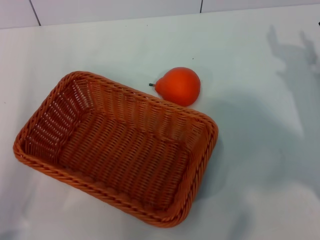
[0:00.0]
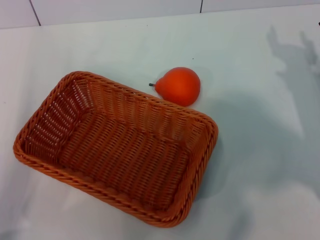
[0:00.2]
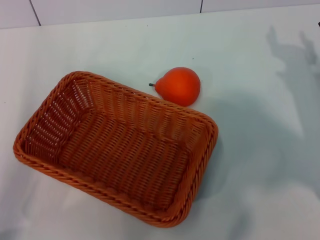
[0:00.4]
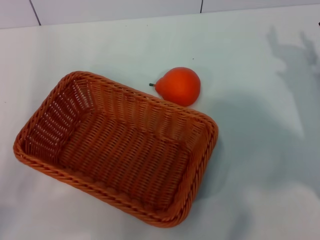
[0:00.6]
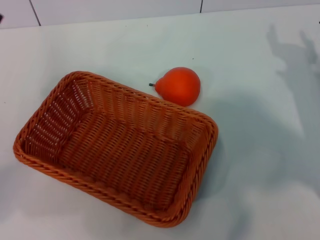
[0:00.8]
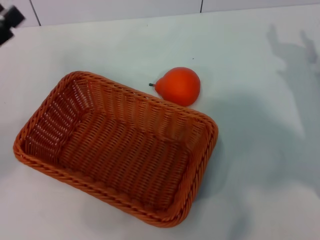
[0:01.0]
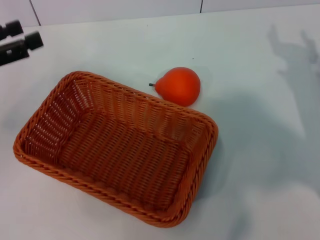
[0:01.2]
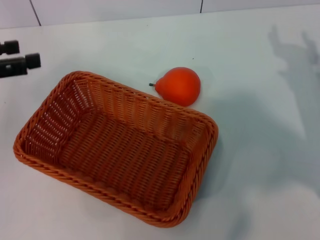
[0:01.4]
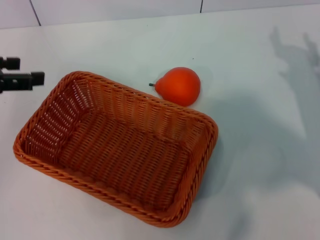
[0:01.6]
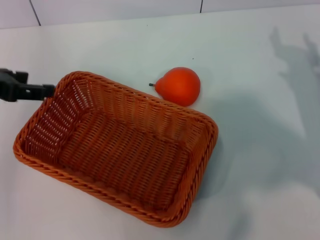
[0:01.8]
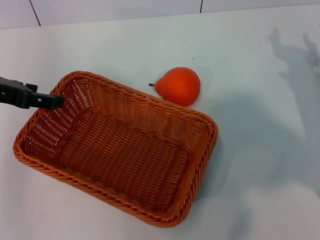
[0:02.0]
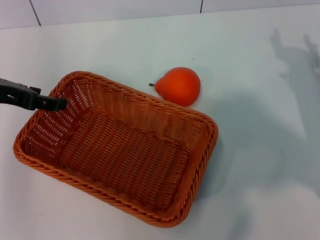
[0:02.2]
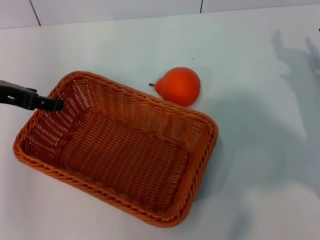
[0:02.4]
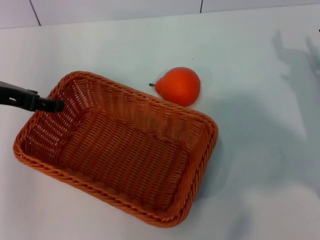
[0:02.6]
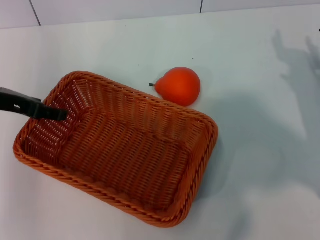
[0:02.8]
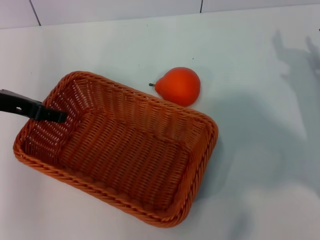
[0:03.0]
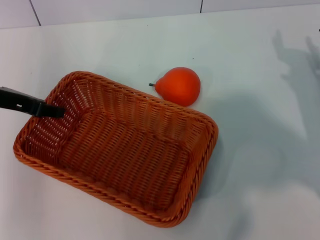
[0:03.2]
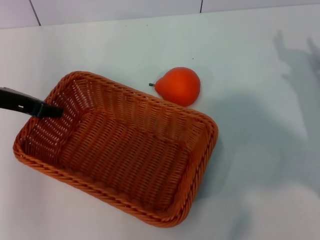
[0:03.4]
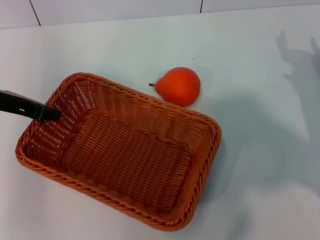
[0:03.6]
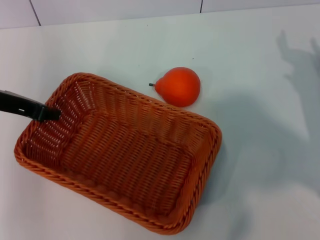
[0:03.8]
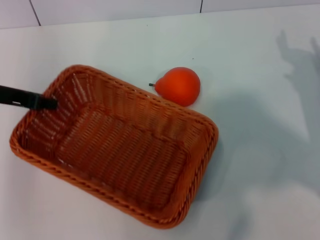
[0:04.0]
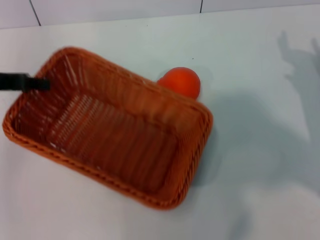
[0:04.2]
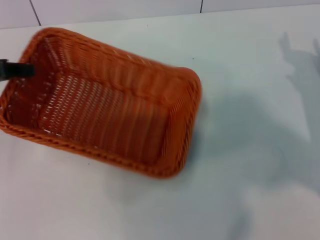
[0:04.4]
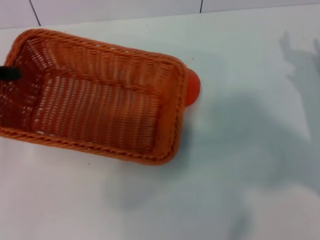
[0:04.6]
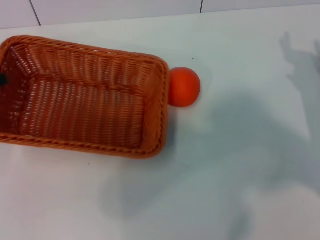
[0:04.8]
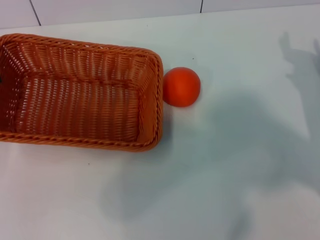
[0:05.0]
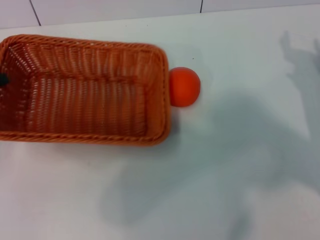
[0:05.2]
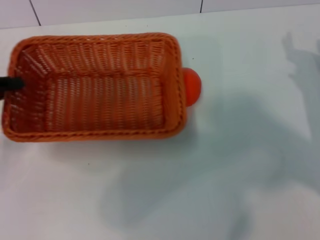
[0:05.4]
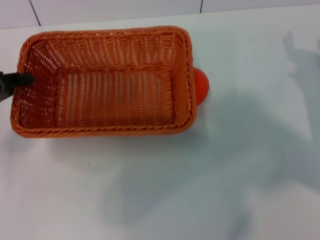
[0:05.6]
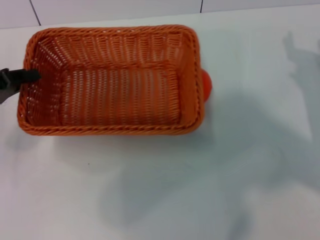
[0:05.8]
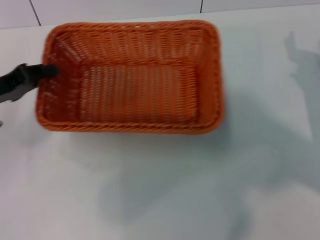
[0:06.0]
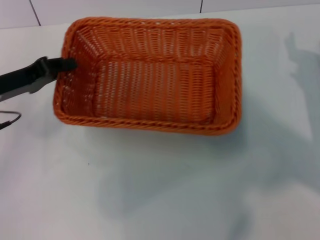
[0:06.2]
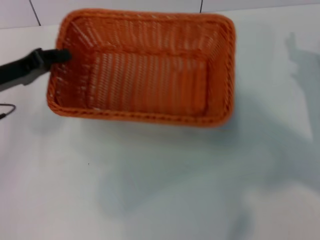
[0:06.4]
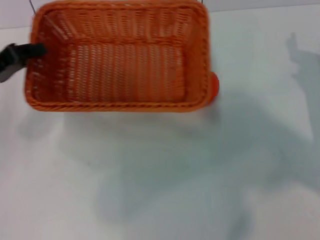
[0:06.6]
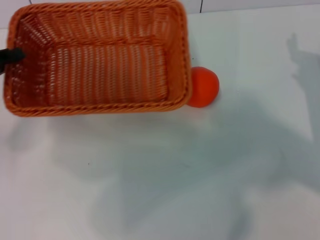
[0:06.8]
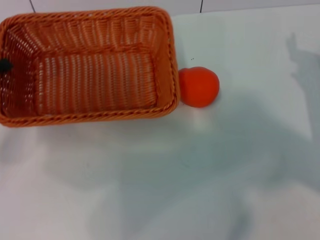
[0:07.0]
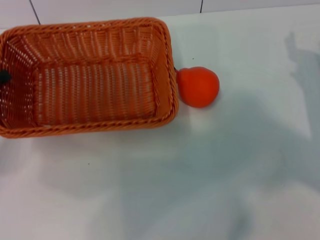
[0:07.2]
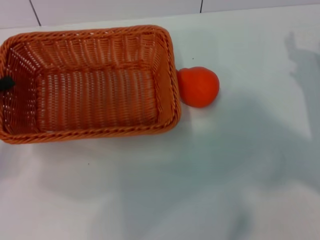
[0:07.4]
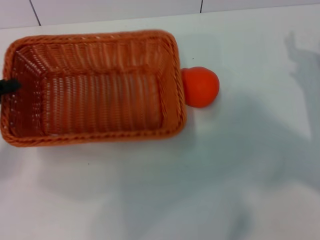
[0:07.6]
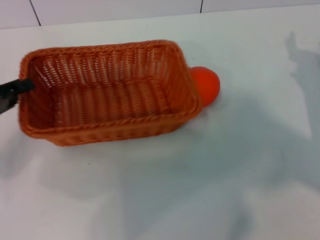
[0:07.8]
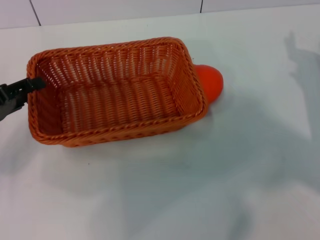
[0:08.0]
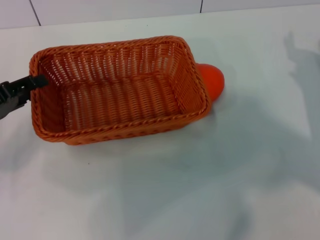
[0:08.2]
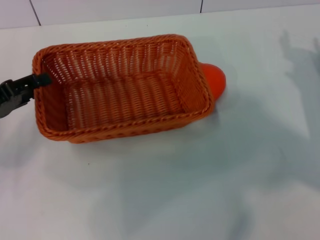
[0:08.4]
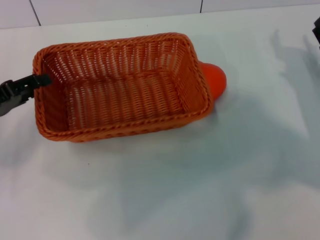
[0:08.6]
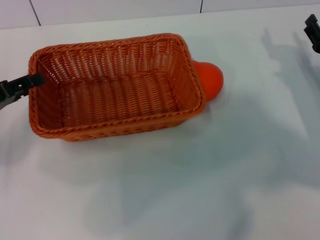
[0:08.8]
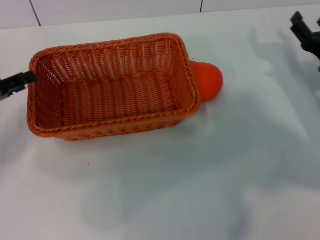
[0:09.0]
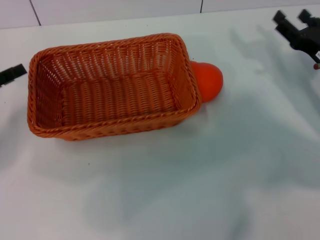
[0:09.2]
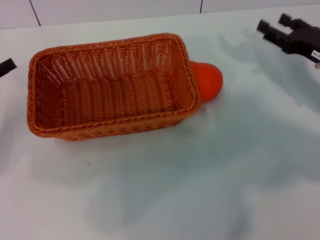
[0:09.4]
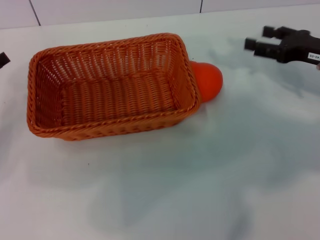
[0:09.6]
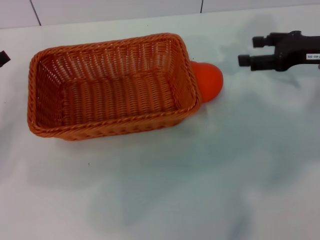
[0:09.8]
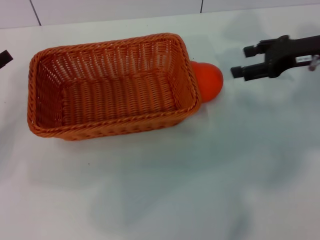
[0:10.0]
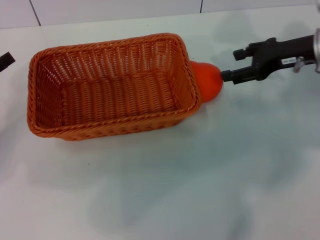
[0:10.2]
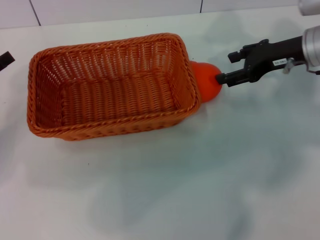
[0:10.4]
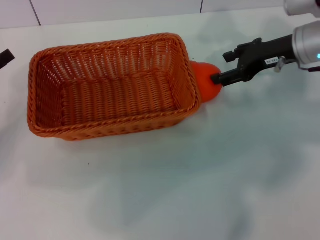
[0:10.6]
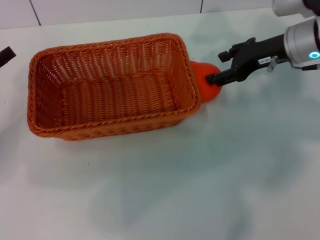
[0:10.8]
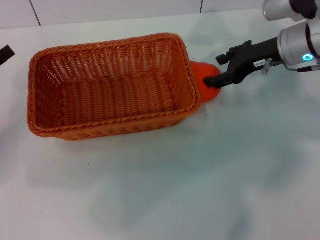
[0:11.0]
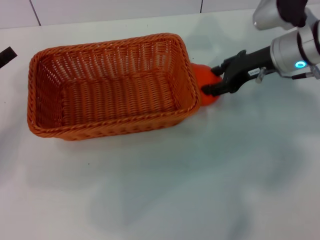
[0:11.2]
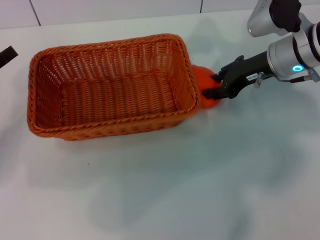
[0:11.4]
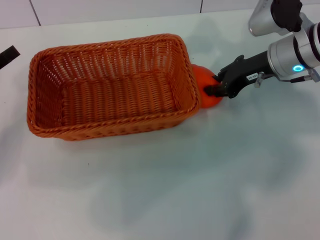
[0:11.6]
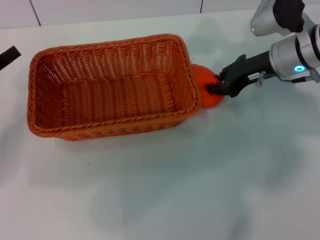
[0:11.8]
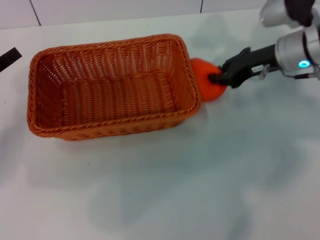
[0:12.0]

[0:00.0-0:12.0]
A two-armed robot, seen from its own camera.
Task of the whole recording: the left gripper pick up the yellow basket and place it horizontally in the middle of the table, the right gripper pick up the orange and place it into the yellow basket.
Step, 0:00.0 to 0:04.0: Pick up the light basket with the left gripper.
Step, 0:04.2 to 0:09.0: Place the light basket in the center of view with the left gripper.
0:00.0 to 0:01.6: The left gripper travels upward and forward by approximately 15 cm.
0:01.6 to 0:03.0: The left gripper travels to the right by roughly 5 cm.
0:03.0 to 0:04.4: The left gripper travels to the left by some 5 cm, and closes up.
0:04.4 to 0:06.0: The left gripper heads downward, covering roughly 5 cm.
0:06.0 to 0:07.6: The left gripper shifts by approximately 5 cm.
0:07.6 to 0:09.0: The left gripper opens its fingers.
0:09.0 to 0:10.4: The right gripper travels upward and forward by roughly 10 cm.
0:10.4 to 0:12.0: The right gripper closes.

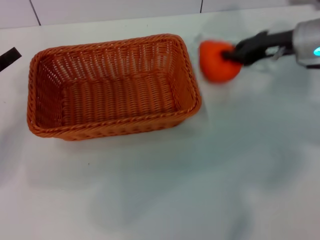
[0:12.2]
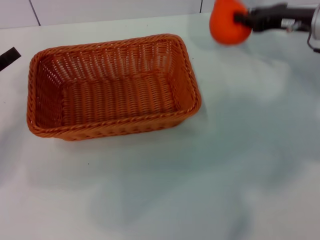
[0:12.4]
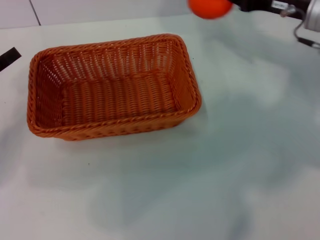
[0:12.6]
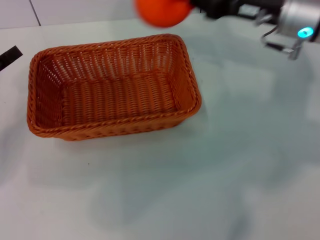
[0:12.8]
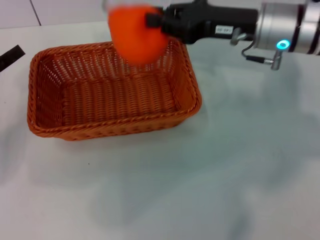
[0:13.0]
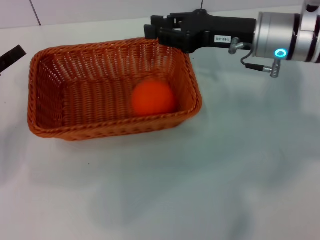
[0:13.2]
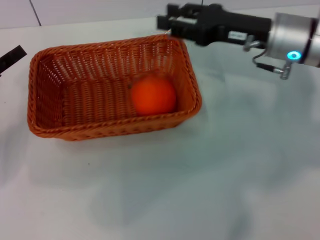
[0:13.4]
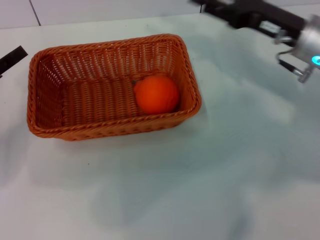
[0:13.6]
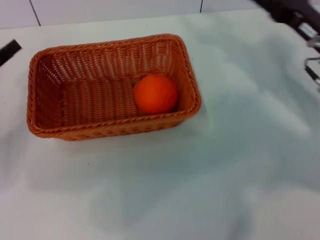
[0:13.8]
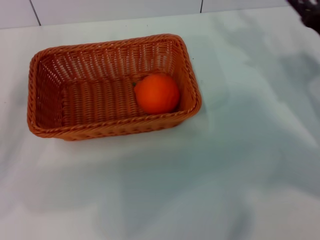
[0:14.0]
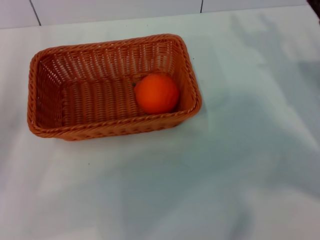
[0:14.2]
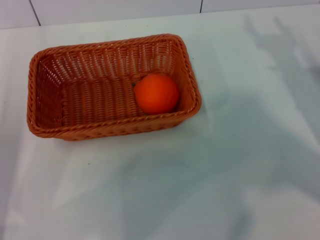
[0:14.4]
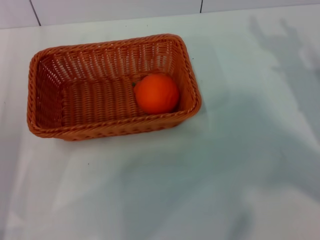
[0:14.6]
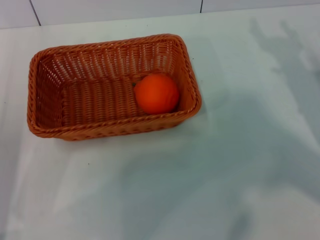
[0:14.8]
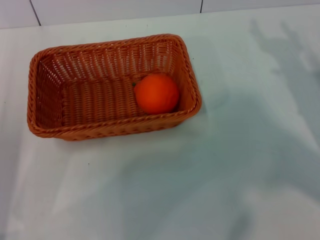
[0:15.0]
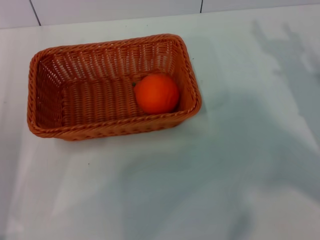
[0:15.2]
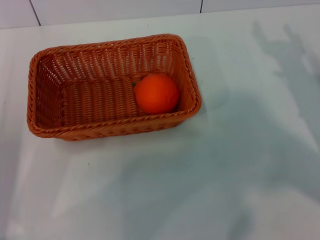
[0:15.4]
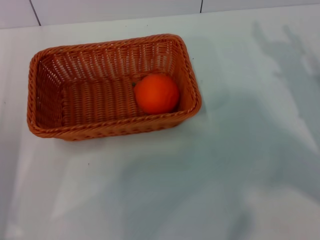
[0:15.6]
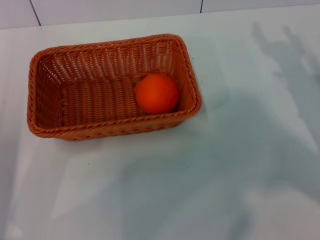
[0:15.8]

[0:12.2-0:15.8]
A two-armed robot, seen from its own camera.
Task of the whole recording: the left gripper pick up the yellow basket and place it horizontally in the middle of the table, the right gripper pick up the orange and place it into the yellow basket.
Step, 0:12.4 to 0:13.2: Place the orange into the light basket with the right gripper.
0:12.2 to 0:14.0: The right gripper goes about 10 cm backward, travels to the left and back again, about 10 cm each way, and opens up.
0:14.0 to 0:15.8: The left gripper travels backward by some 5 cm.
